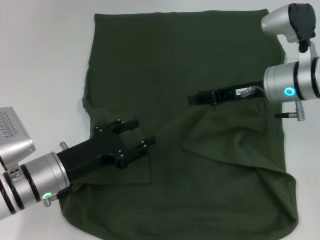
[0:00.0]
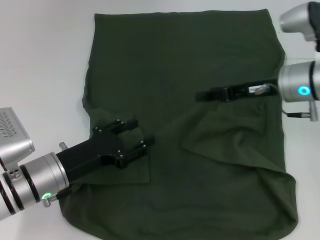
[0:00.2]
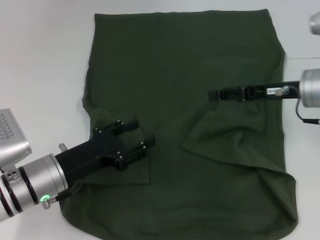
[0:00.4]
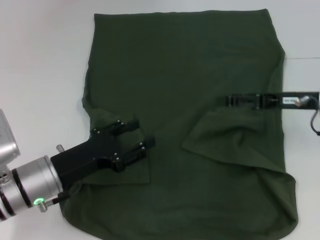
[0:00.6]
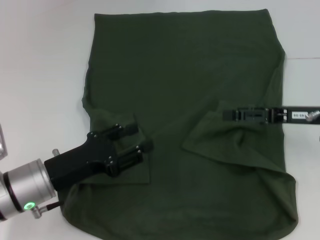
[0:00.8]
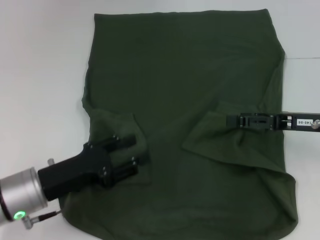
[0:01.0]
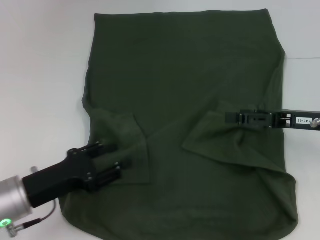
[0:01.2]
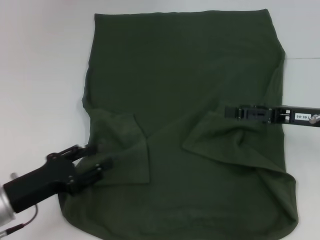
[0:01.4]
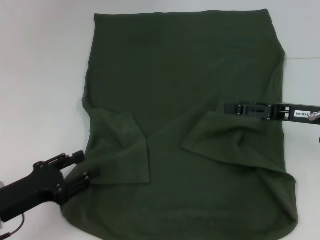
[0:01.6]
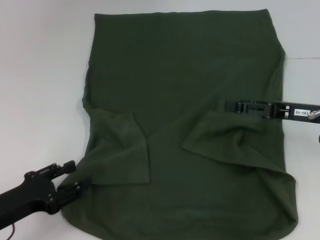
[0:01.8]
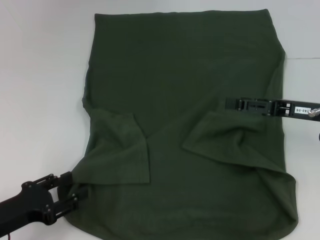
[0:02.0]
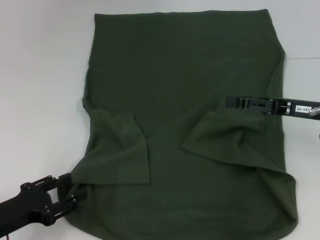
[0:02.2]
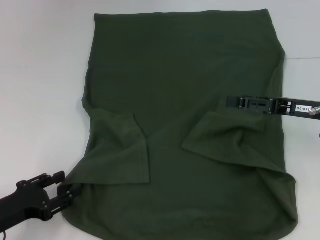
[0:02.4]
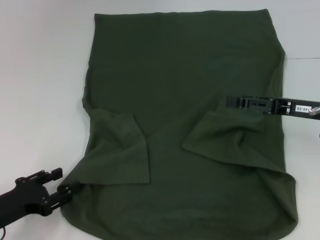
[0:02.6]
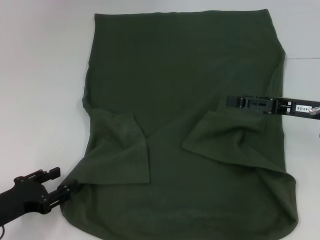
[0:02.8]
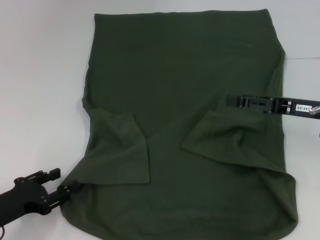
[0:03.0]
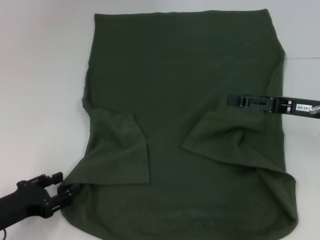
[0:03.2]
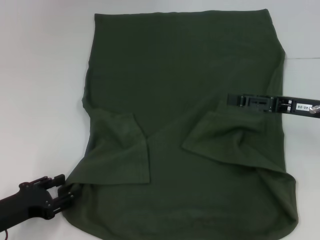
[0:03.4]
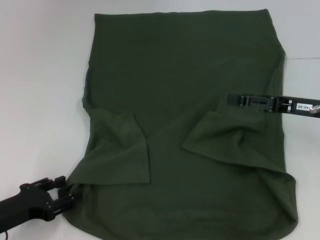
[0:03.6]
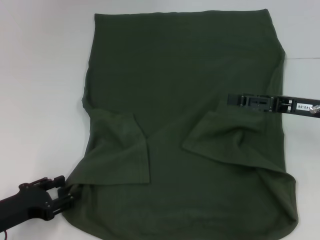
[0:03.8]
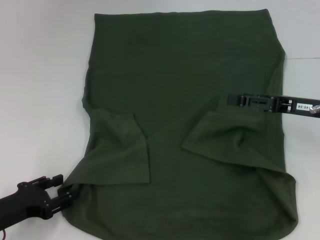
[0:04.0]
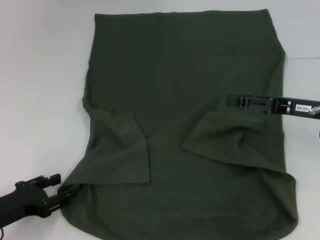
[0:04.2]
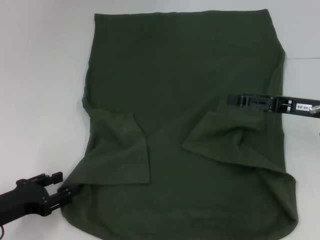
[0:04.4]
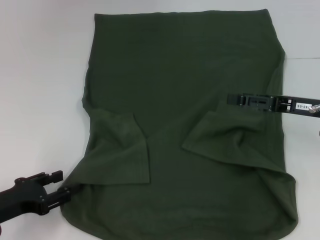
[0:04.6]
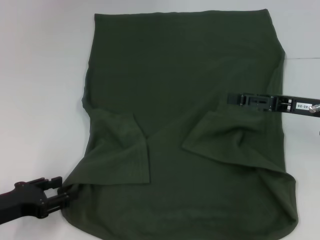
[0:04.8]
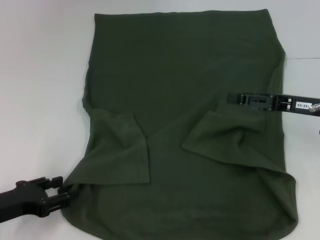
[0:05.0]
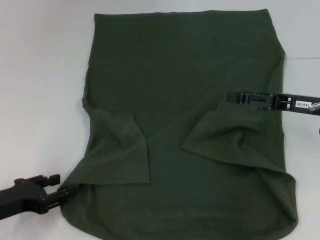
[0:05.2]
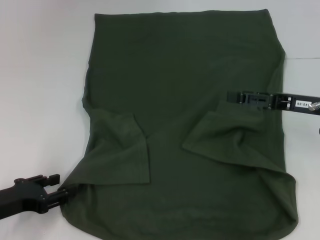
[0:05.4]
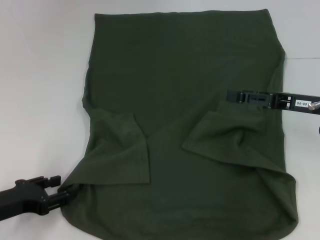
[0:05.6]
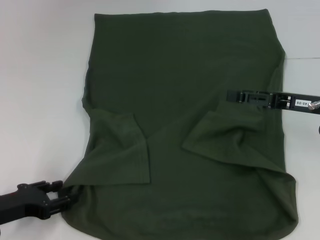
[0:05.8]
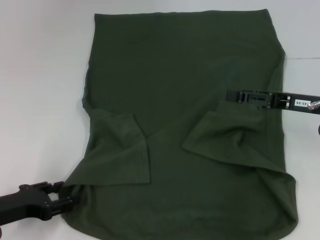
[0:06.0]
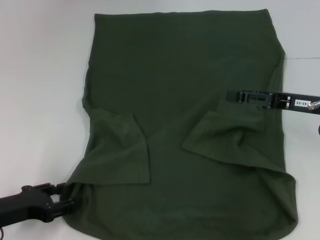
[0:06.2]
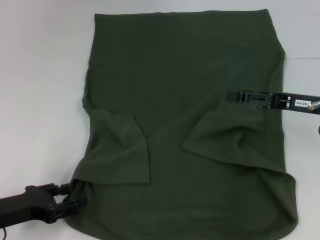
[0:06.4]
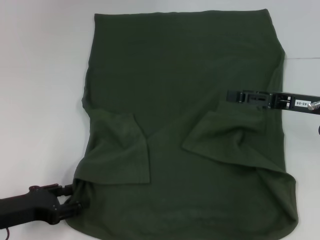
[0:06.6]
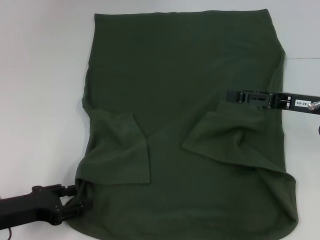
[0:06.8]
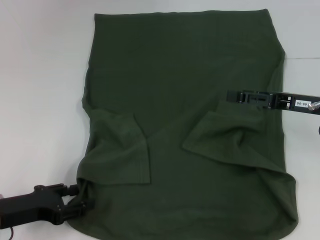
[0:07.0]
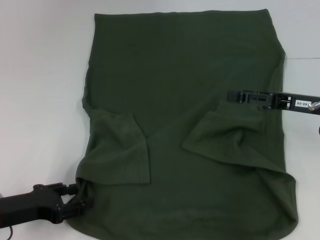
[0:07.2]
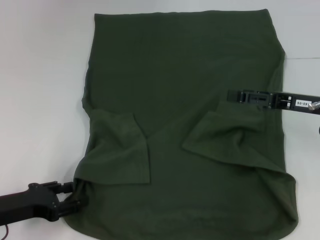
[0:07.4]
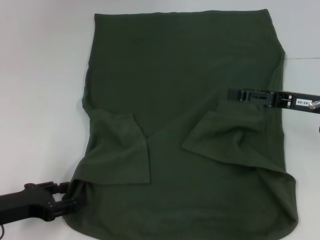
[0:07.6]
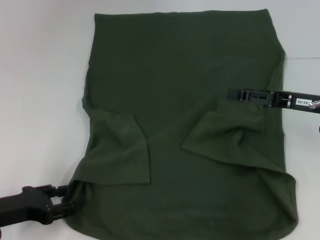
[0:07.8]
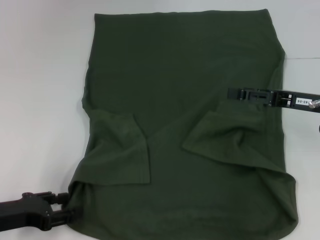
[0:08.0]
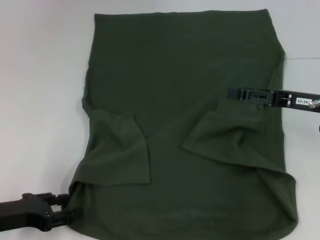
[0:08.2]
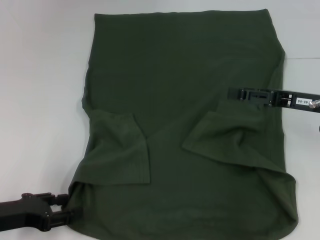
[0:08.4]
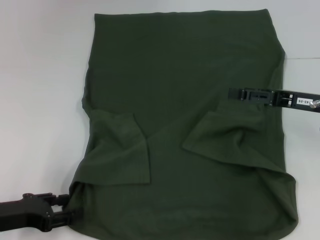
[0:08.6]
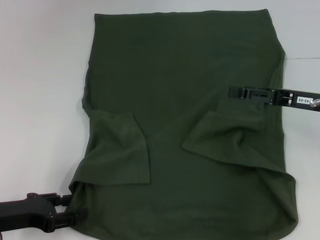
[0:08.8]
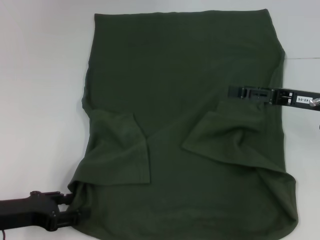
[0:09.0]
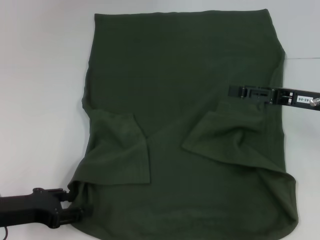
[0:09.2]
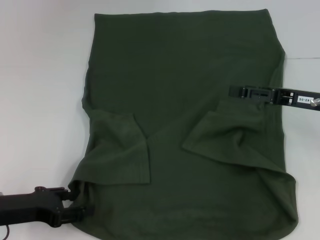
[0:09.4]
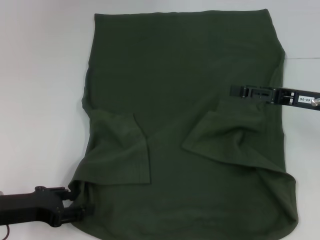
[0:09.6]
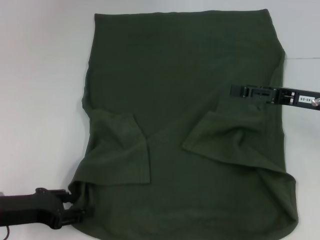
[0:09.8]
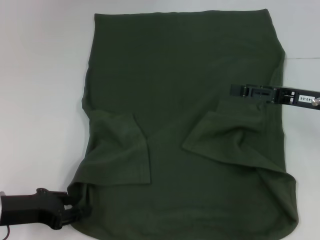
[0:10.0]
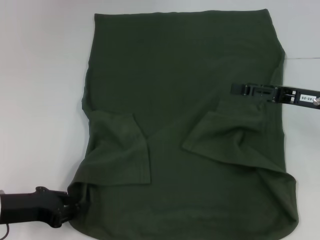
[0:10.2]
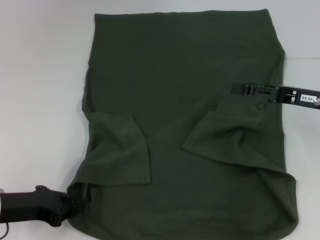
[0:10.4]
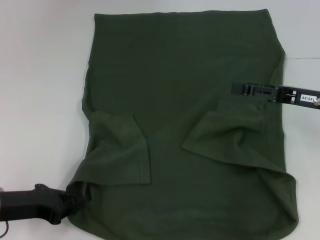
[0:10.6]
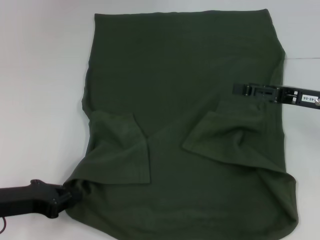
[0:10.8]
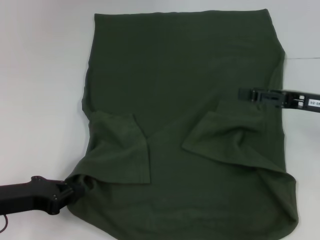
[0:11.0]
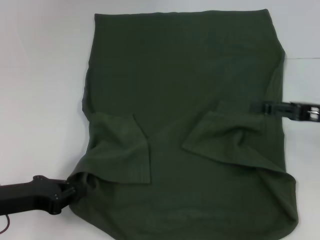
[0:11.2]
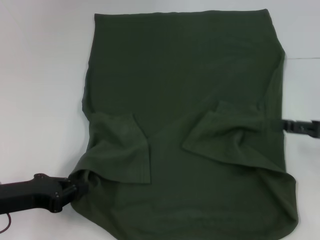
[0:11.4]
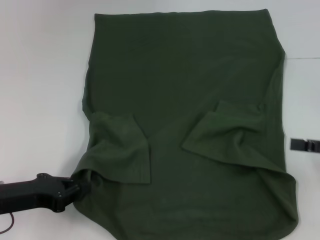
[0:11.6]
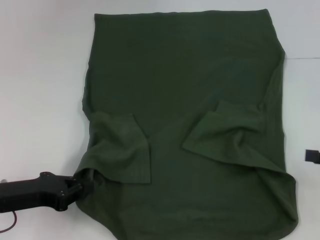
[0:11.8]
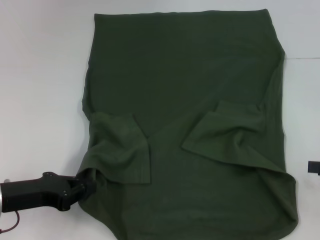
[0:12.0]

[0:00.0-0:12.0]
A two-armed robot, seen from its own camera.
Step, 0:00.2 to 0:11.4: Grab the bottom left corner with your left hand.
0:00.0 to 0:01.6: The right gripper heads to the right and backward, covering approximately 10 cm, and opens its fingers. The left gripper goes approximately 10 cm to the left and backward.
0:01.6 to 0:03.0: There are only small adjustments of the grippers.
0:03.0 to 0:04.4: Neither gripper changes place.
0:04.4 to 0:09.0: The grippers move only a little.
0:09.0 to 0:10.4: The left gripper closes up.
0:10.4 to 0:12.0: The right gripper is displaced to the right and backward by some 15 cm.

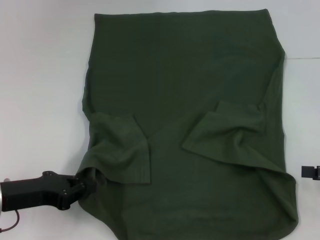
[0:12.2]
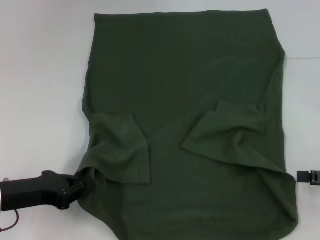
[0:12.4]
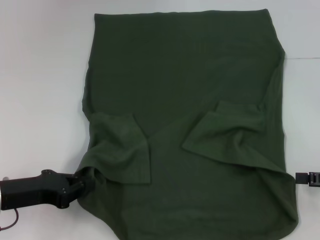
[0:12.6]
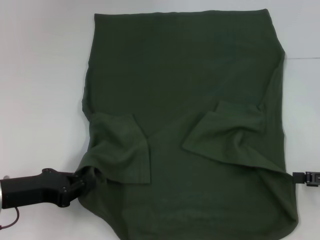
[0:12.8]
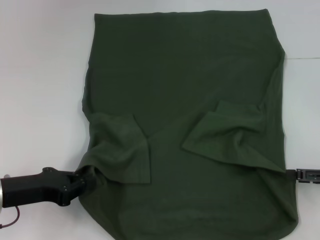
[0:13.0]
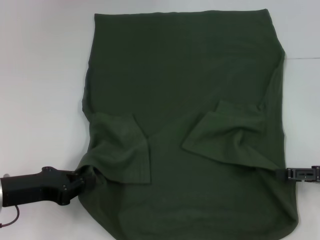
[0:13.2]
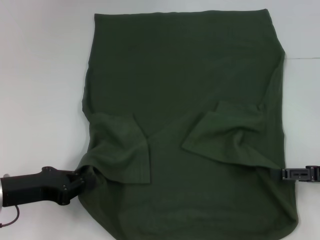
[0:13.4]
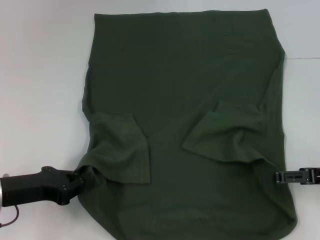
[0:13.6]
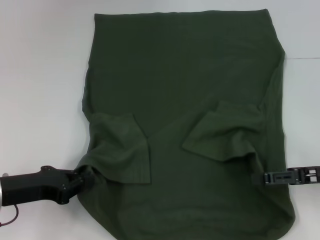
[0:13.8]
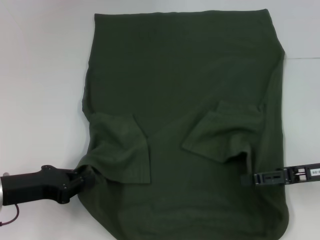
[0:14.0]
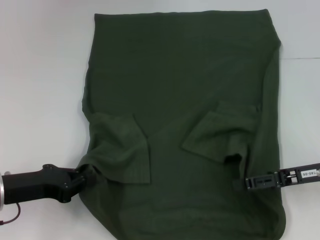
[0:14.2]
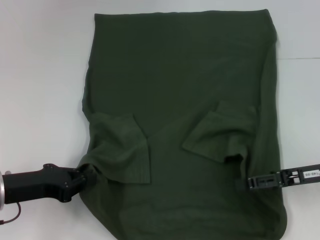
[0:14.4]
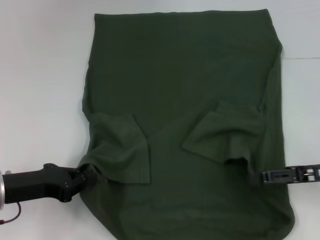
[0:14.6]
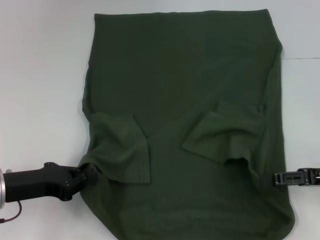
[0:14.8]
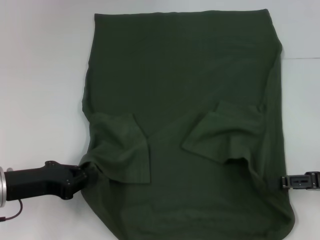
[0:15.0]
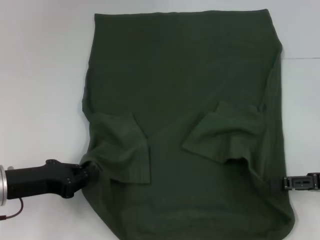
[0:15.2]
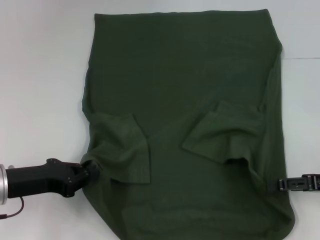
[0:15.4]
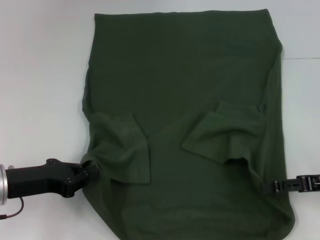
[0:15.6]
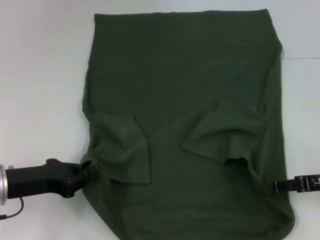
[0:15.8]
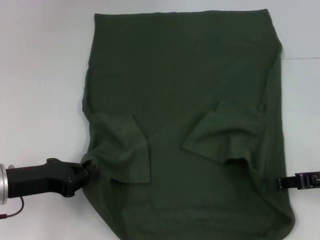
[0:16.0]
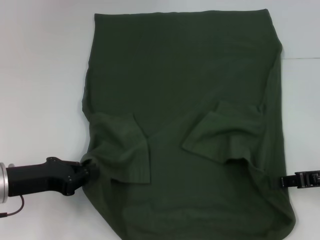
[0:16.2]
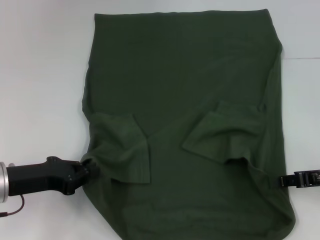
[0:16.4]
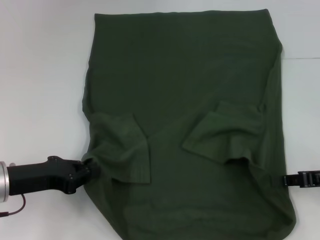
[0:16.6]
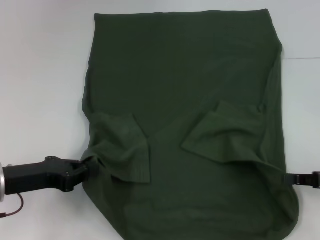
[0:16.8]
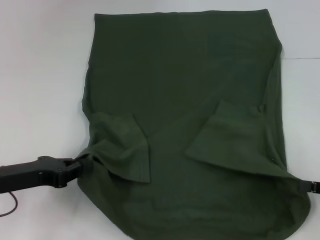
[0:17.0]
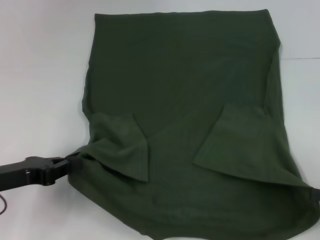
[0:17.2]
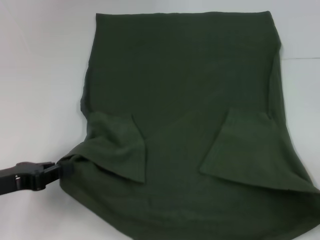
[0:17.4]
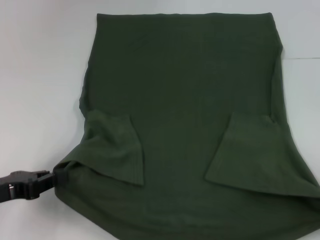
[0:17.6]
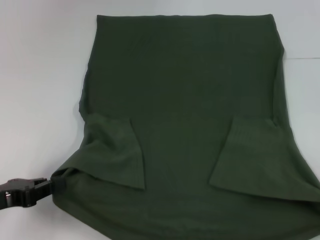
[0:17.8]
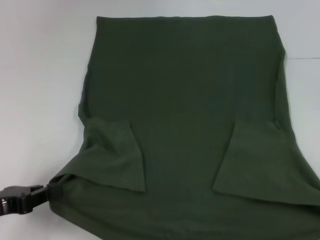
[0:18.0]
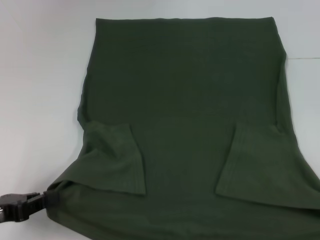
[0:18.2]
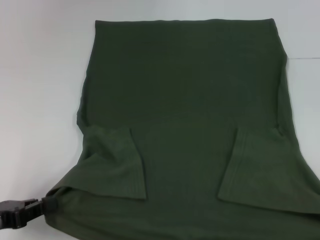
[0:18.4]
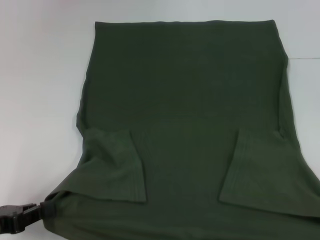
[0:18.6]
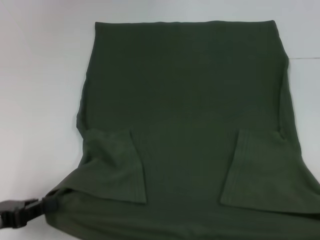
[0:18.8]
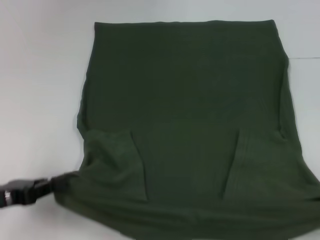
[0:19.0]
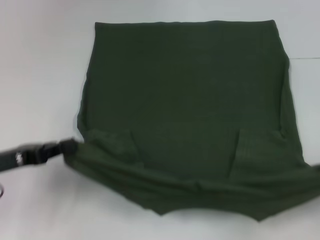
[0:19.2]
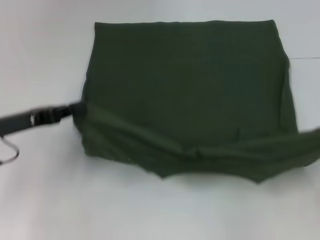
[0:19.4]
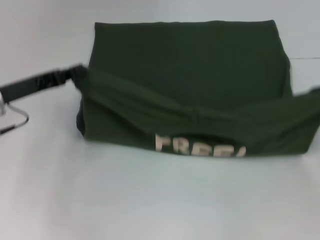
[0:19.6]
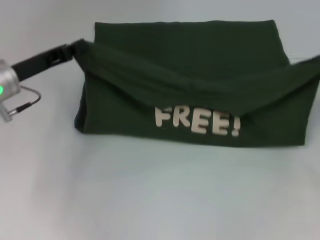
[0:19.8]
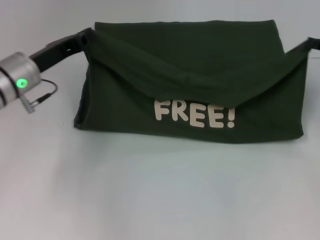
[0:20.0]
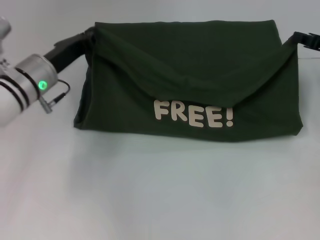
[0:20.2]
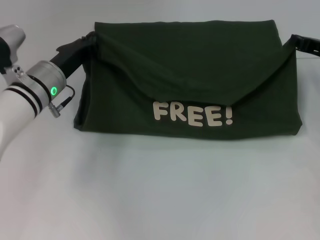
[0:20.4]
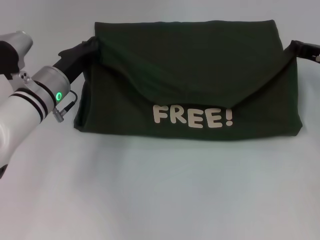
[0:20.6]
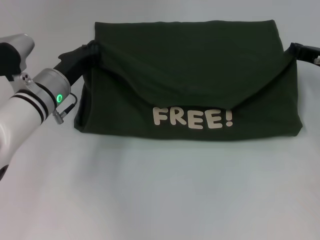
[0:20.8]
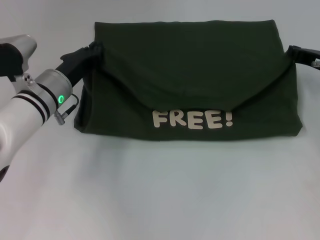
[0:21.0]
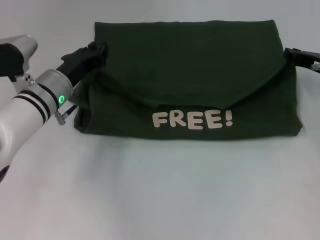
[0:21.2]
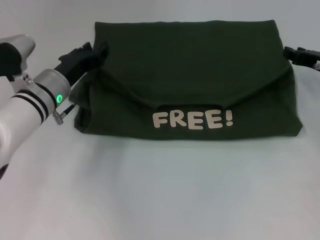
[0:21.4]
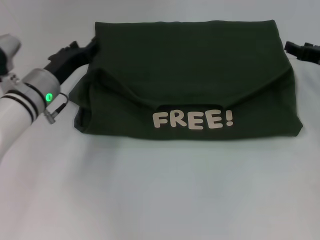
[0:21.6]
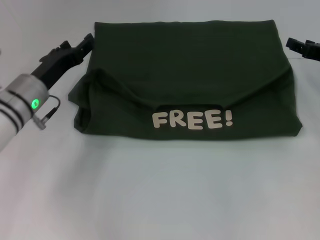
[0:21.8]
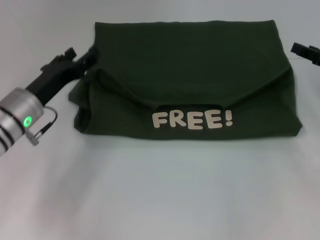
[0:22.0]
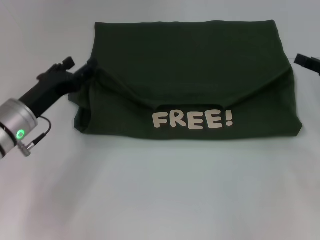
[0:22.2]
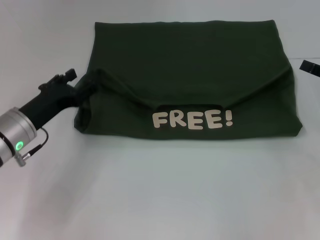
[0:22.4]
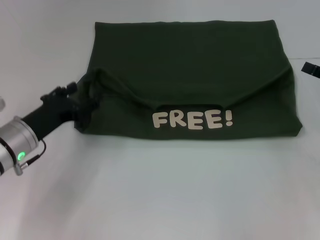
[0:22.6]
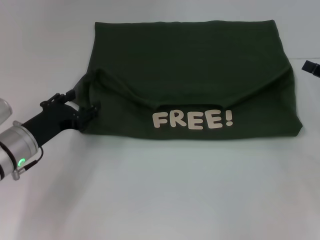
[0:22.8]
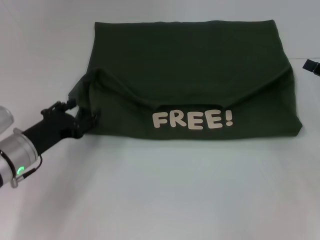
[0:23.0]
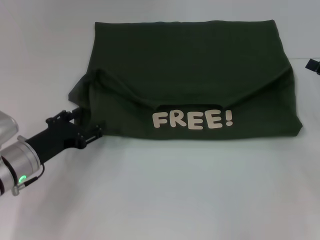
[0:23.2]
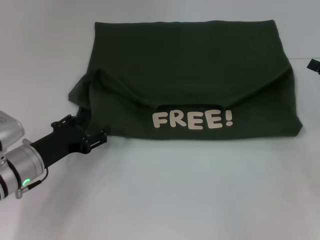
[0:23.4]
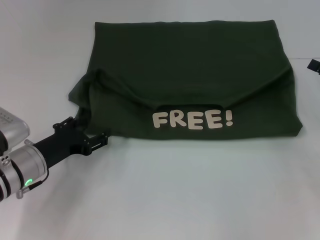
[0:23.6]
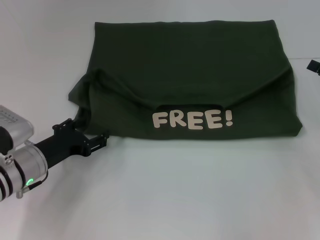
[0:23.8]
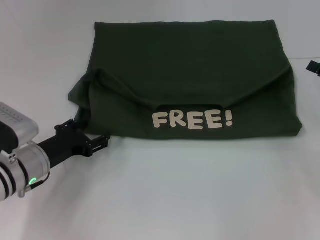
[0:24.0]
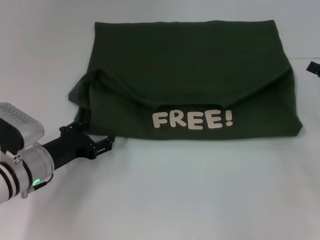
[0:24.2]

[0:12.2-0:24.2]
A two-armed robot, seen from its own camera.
Step, 0:12.2 to 0:17.0: Grab the bottom right corner with your right hand.
Step, 0:17.2 to 0:21.6: Fold the clothes with your left hand.
Step, 0:17.2 to 0:21.6: Fold the clothes with your right hand.
0:12.2 to 0:13.8: The right gripper goes about 5 cm to the left.
0:13.8 to 0:15.2: The grippers move only a little.
0:15.2 to 0:16.6: The right gripper closes up.
0:16.6 to 0:18.2: The left gripper shifts some 10 cm backward and to the left; the right gripper heads backward and to the right, covering roughly 15 cm.
0:18.2 to 0:19.8: The right gripper travels forward and upward by roughly 25 cm. The left gripper shifts approximately 15 cm forward.
0:19.8 to 0:21.2: The left gripper travels to the right by roughly 10 cm; the right gripper heads to the left and forward, covering some 10 cm.
0:21.2 to 0:22.6: The right gripper travels backward and to the right by roughly 10 cm, and opens up, while the left gripper shifts approximately 10 cm backward and to the left, and opens up.
0:22.6 to 0:24.2: The grippers make only small movements.
